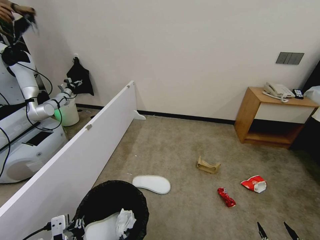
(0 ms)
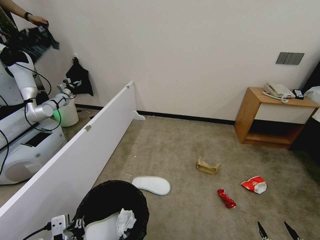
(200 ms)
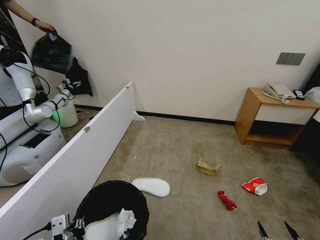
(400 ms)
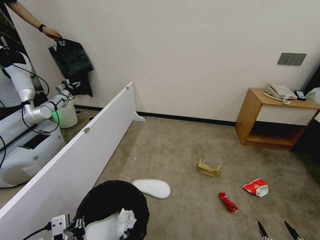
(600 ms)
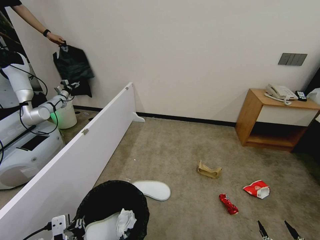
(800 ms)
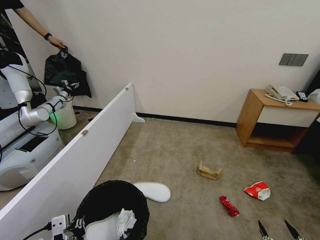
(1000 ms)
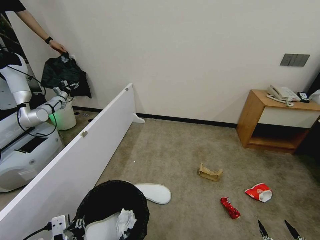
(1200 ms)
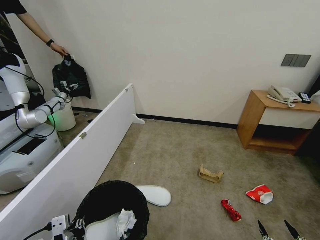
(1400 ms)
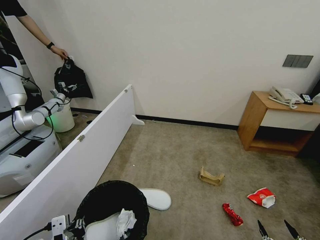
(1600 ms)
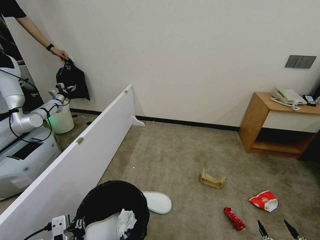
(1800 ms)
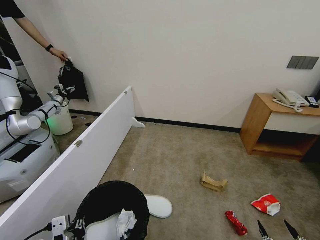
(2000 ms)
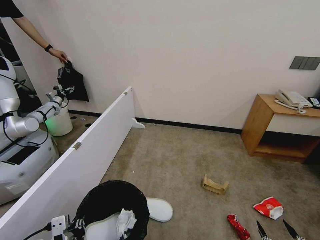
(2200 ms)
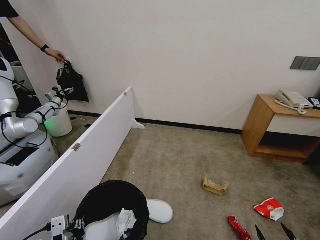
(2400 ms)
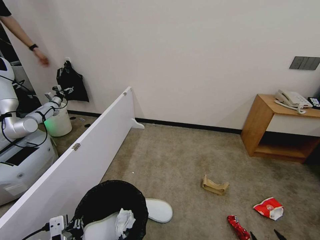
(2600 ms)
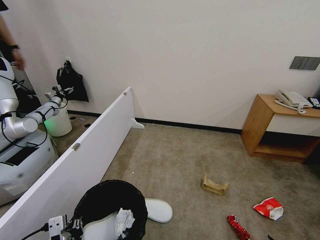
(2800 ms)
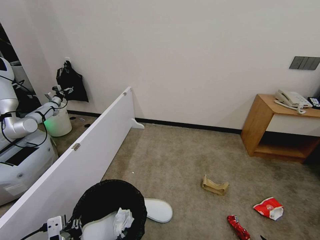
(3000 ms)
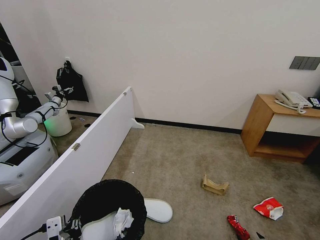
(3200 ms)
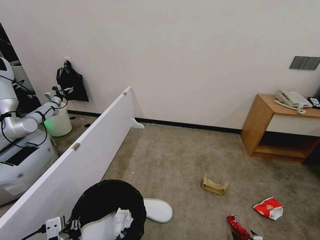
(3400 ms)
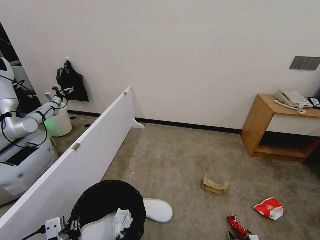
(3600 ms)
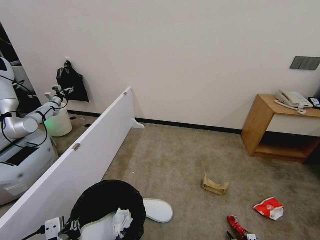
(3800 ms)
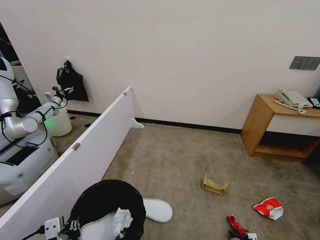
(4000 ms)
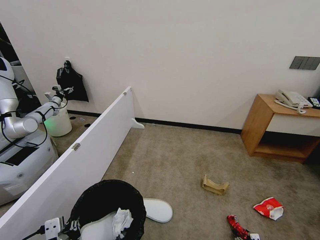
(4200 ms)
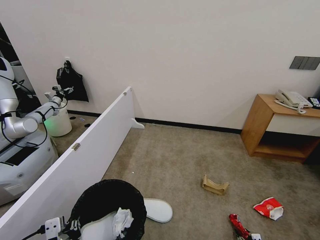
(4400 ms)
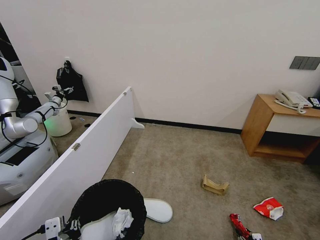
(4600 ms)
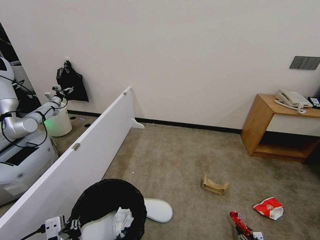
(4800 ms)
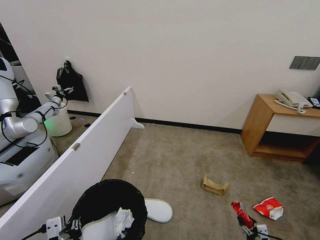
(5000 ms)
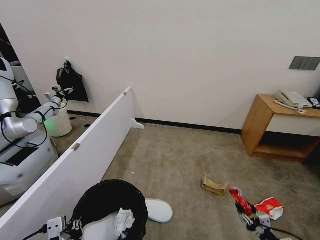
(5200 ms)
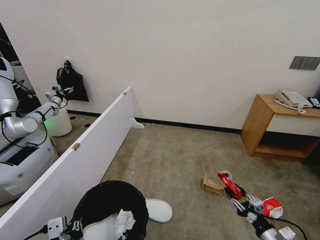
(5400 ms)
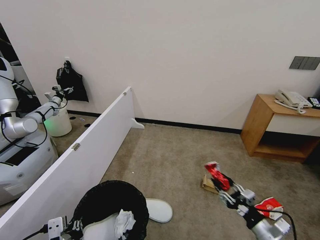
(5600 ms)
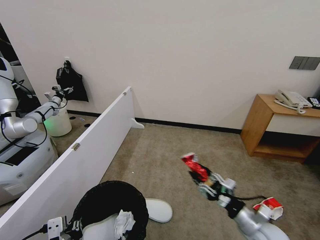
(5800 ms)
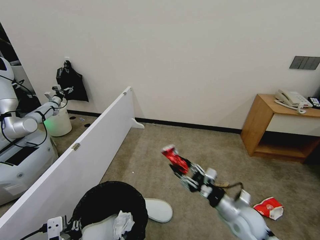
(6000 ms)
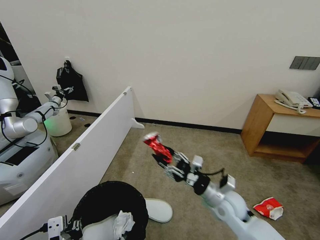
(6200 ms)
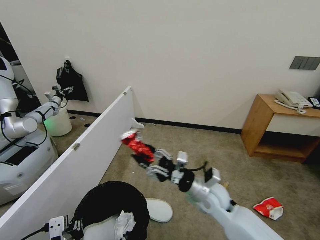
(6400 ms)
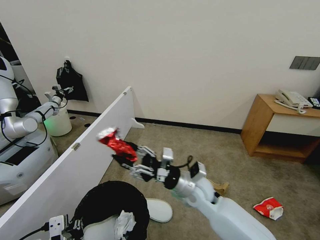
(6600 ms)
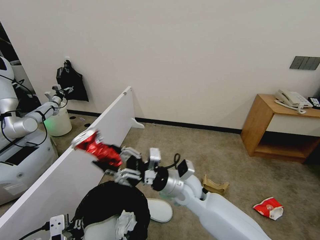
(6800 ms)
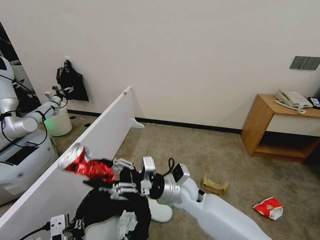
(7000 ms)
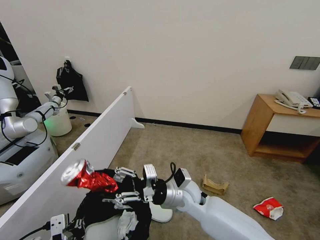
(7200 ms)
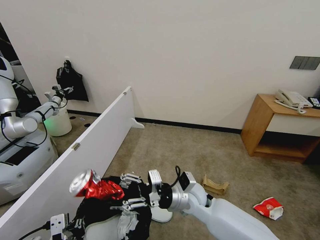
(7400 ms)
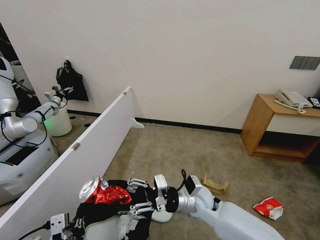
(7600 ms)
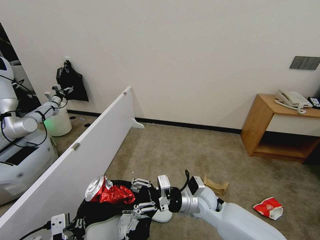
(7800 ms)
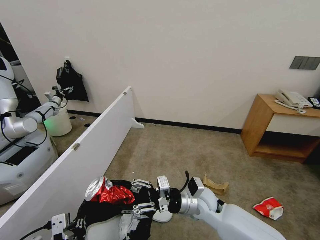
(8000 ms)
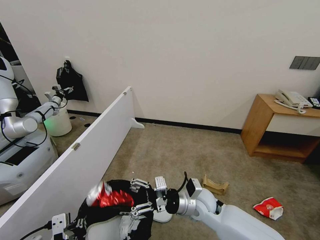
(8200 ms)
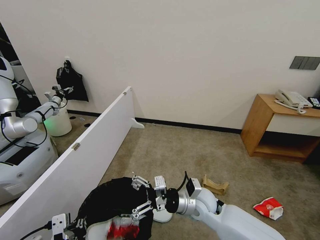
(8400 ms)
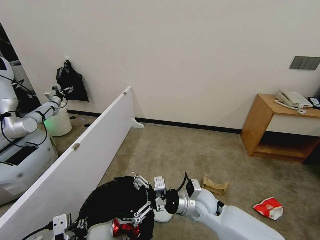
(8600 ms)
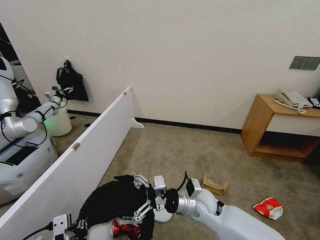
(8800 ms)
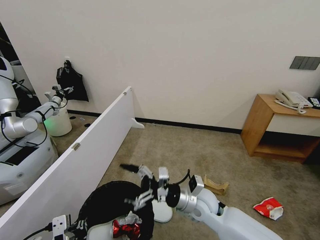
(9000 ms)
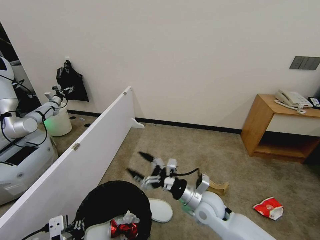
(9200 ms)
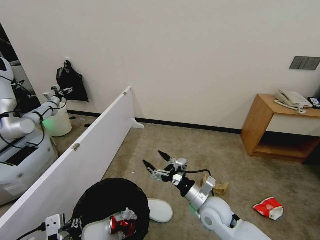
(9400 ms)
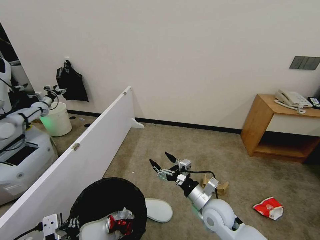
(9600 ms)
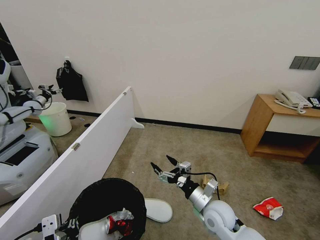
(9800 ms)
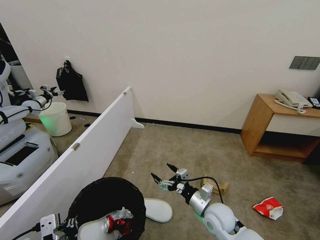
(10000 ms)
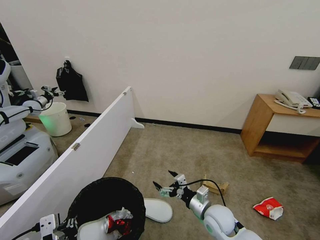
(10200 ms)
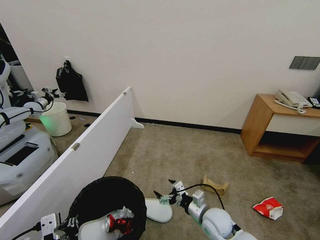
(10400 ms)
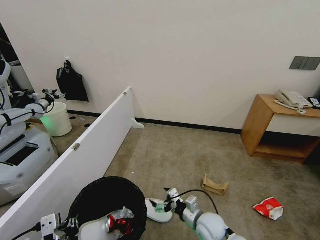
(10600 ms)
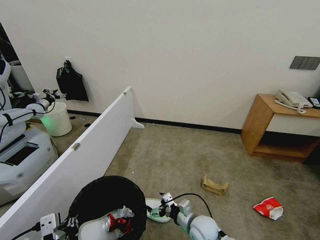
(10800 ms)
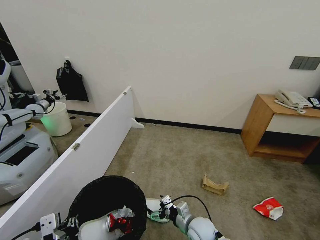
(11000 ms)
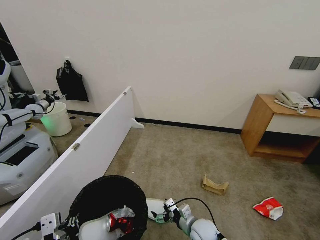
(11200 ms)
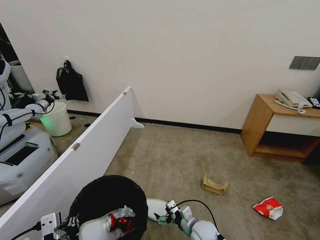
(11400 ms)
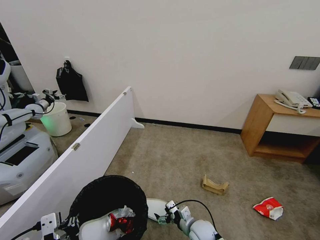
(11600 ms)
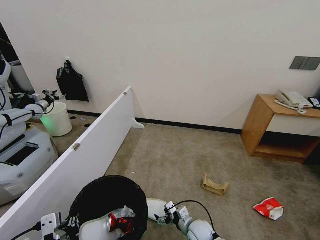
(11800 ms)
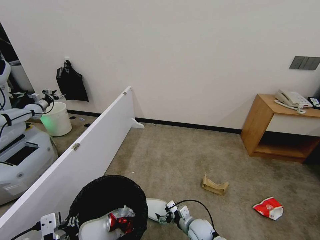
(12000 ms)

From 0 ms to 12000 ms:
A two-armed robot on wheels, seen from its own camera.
Task of the whole recording: Pick up the trash bin, then pick up the garbage from the floor and place it into the trash bin.
From 1600 ms to 3000 ms: The right gripper shifts roughly 10 cm downward.
From 4400 ms to 6000 ms: The right gripper moves upward, to the left and forward, some 30 cm.
From 6000 ms to 7600 ms: The right gripper goes approximately 15 cm to the left.
From 7600 ms to 9000 ms: The right gripper opens up.
From 9000 ms to 10400 ms: The right gripper travels downward and to the right by roughly 10 cm.
From 10400 ms to 12000 ms: The right gripper travels downward by about 15 cm.

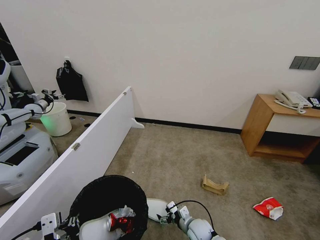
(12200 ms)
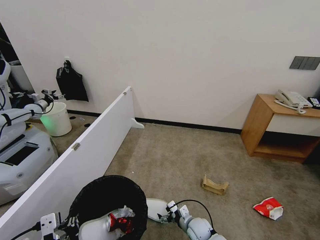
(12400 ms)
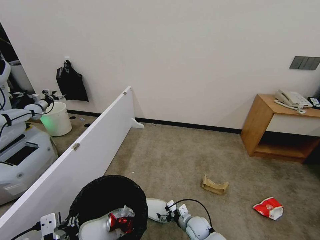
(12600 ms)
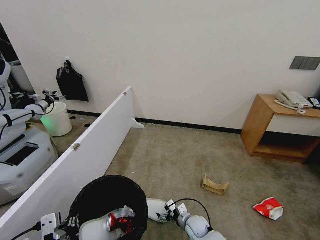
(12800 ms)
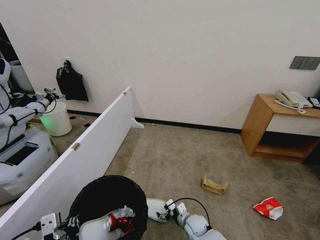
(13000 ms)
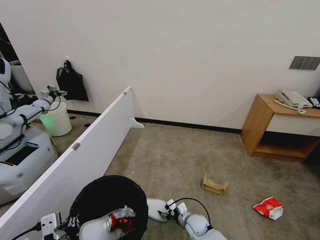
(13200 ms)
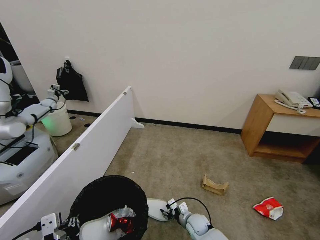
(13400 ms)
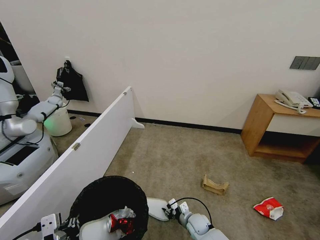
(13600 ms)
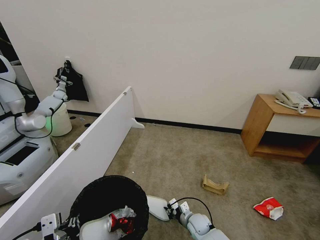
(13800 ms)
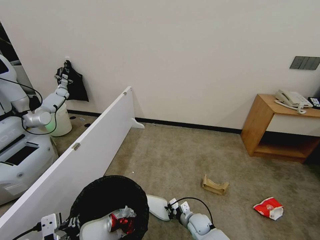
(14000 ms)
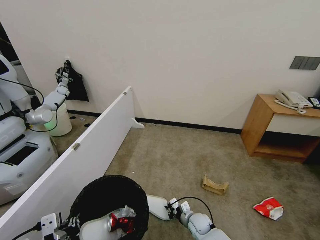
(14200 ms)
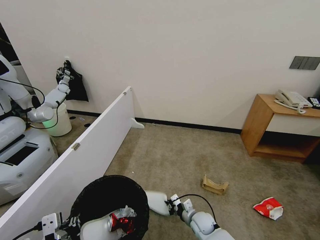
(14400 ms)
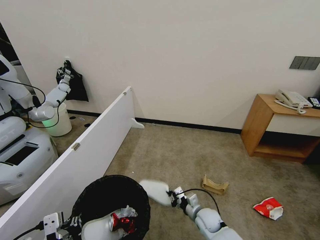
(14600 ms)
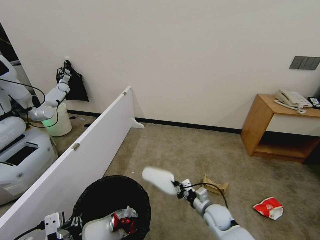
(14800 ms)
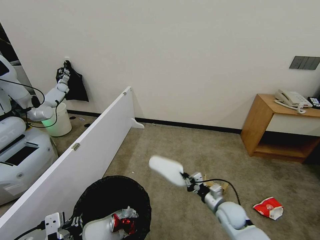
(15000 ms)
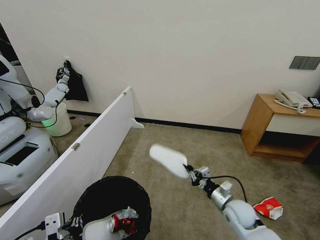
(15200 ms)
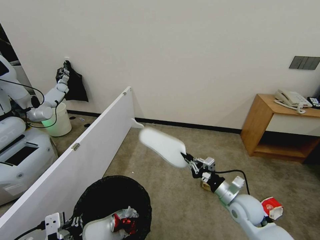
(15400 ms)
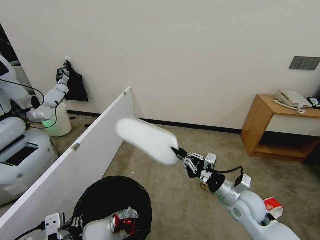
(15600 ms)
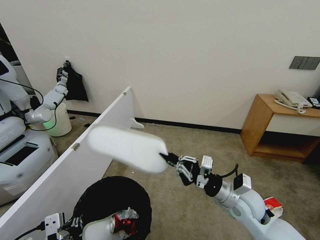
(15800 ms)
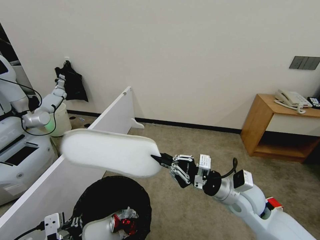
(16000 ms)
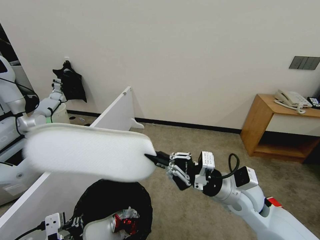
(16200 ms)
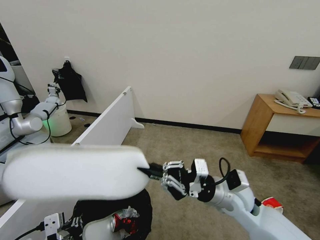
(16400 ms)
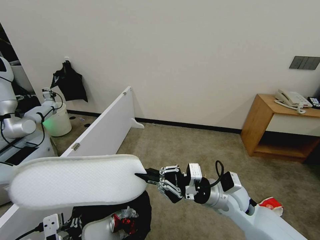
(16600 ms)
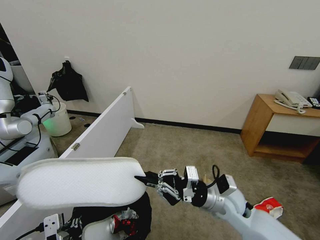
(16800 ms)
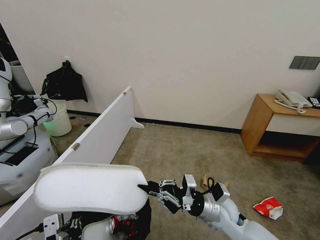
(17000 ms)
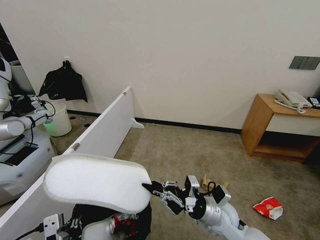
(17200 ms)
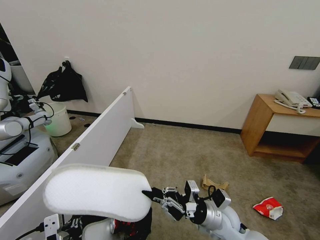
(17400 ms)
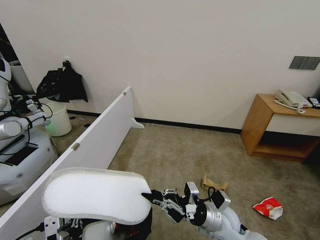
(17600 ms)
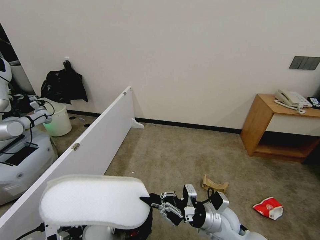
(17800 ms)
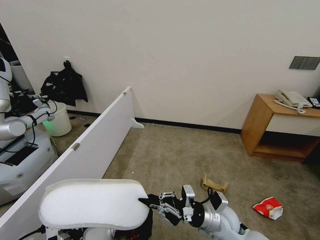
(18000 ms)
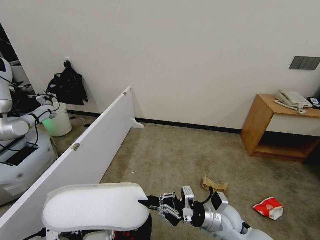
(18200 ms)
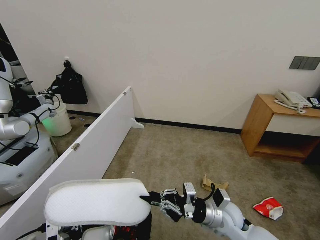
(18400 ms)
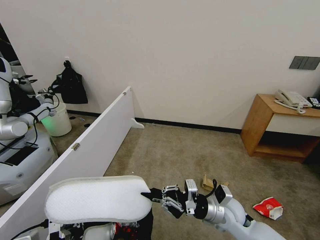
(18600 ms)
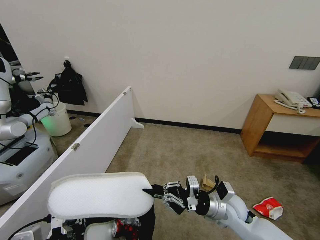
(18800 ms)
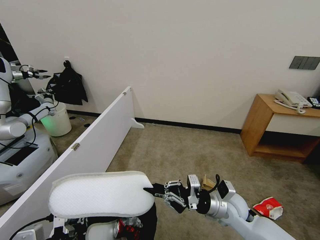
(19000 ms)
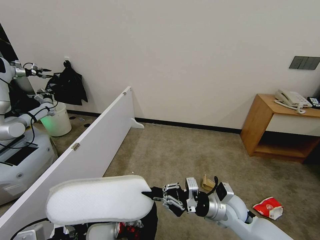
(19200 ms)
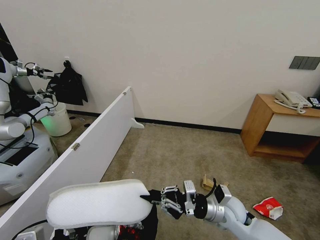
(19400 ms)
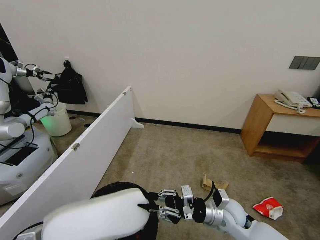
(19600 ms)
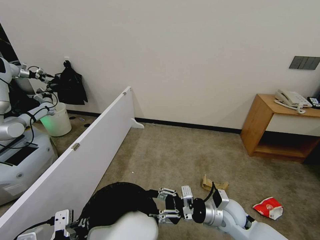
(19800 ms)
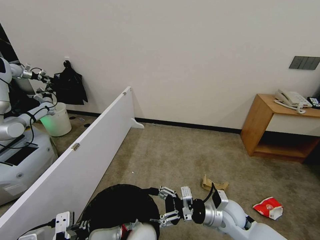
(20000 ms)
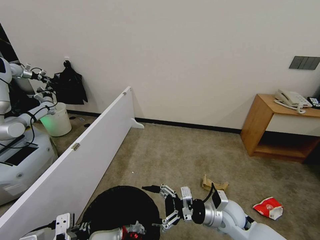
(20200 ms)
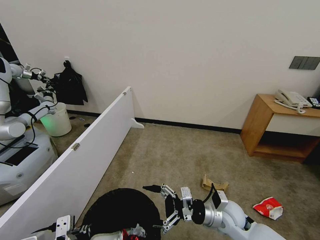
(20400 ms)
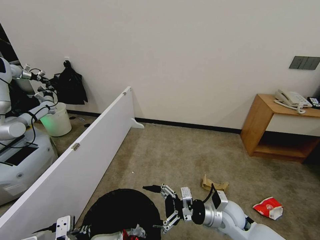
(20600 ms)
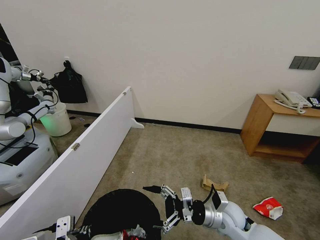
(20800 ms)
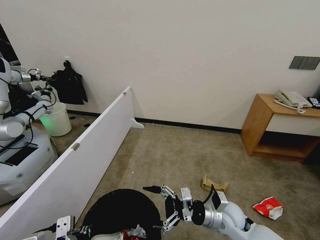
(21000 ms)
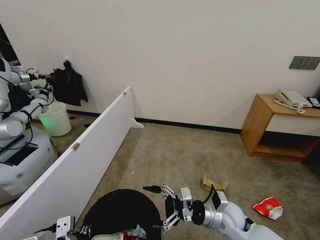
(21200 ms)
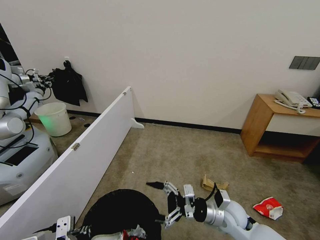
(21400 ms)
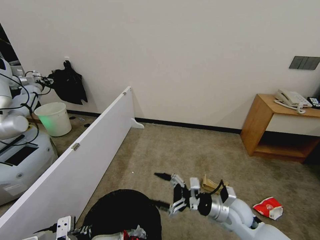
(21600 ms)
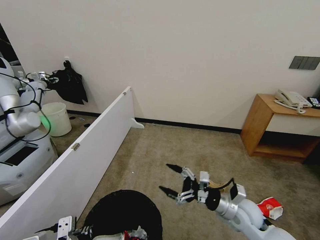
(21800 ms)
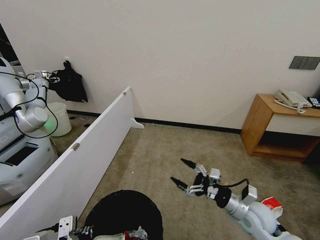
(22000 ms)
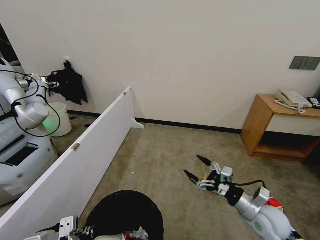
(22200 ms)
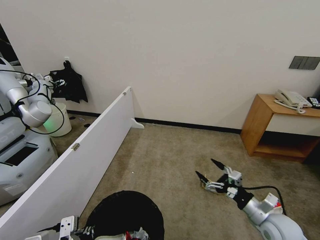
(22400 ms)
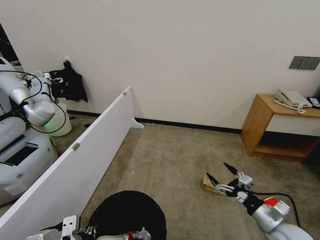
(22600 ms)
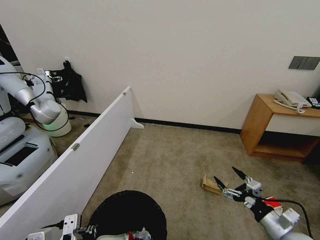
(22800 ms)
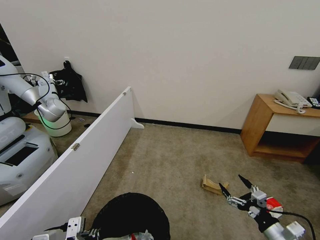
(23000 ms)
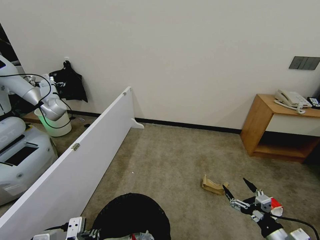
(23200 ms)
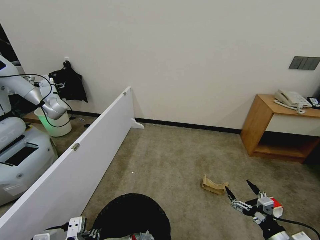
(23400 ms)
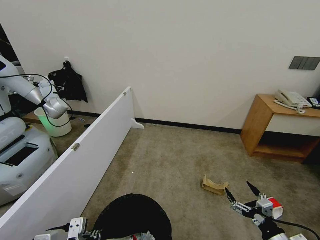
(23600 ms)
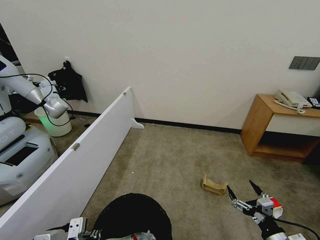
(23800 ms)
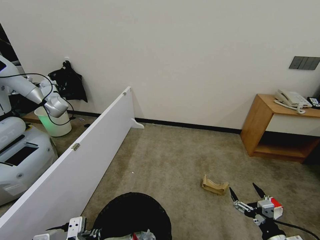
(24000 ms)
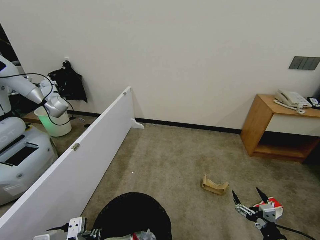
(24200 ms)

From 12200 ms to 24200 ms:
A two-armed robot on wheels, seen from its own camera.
Task of the whole recording: Pick up the trash bin, then pick up the garbage from the floor and place it into the trash bin.
From 12200 ms to 13800 ms: The right gripper closes up.
From 13800 ms to 15200 ms: The right gripper travels upward and to the right by some 20 cm.
From 15200 ms to 16600 ms: The right gripper shifts about 15 cm upward and to the left.
From 16600 ms to 18200 ms: The right gripper shifts roughly 10 cm downward.
From 18200 ms to 19800 ms: The right gripper opens its fingers.
From 19800 ms to 21200 ms: The right gripper opens up.
From 21200 ms to 22600 ms: The right gripper moves to the right and backward, some 15 cm.
From 22600 ms to 24200 ms: The right gripper is displaced backward and downward by some 10 cm.
